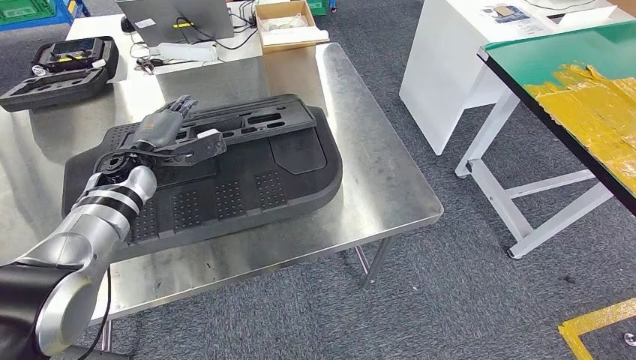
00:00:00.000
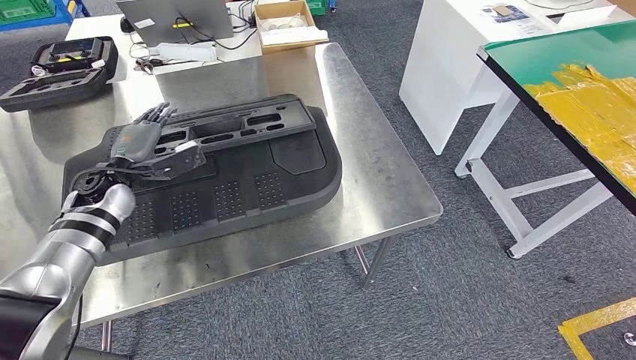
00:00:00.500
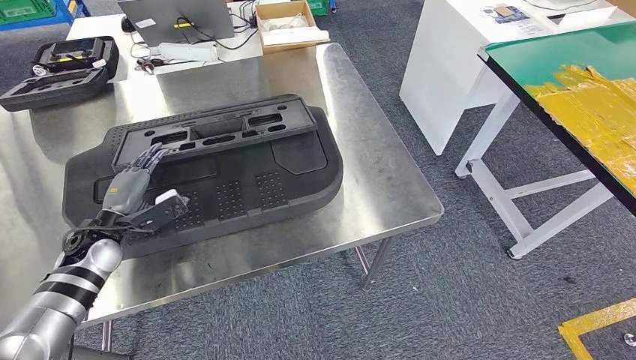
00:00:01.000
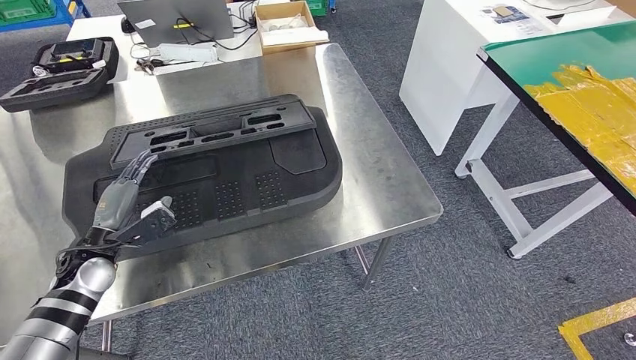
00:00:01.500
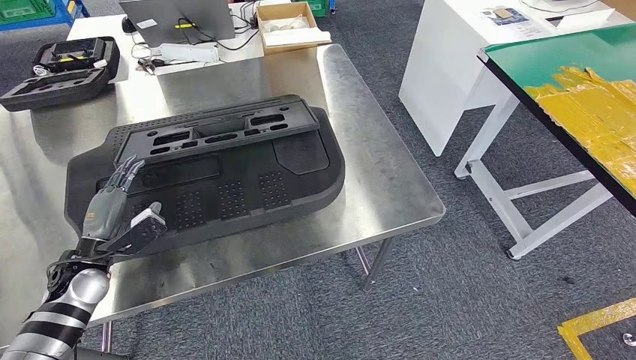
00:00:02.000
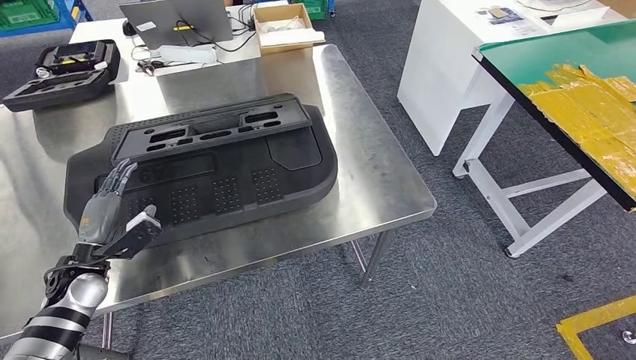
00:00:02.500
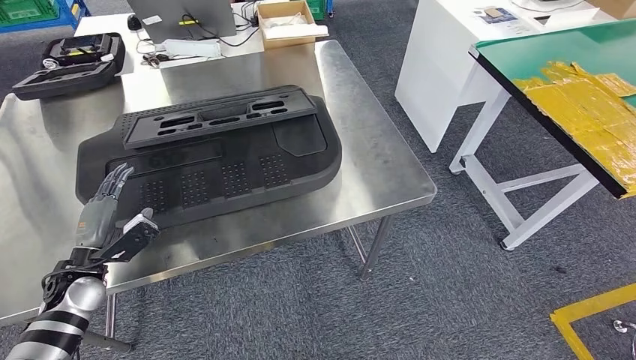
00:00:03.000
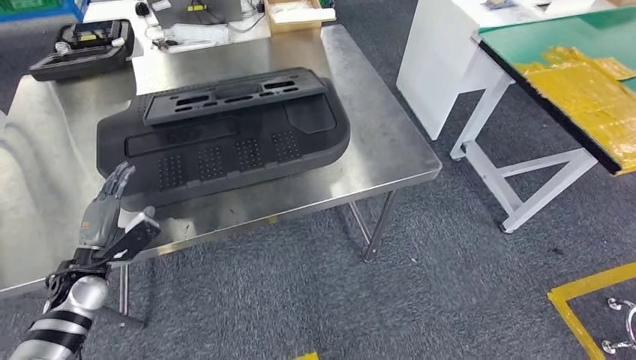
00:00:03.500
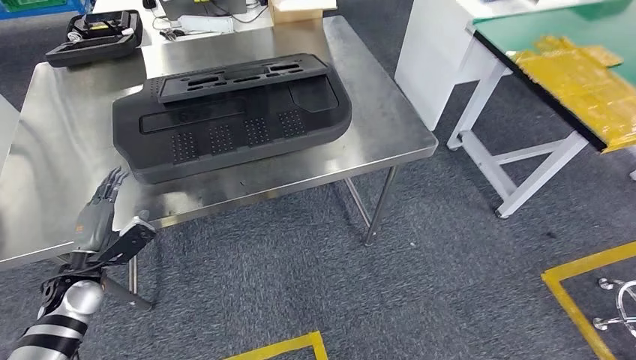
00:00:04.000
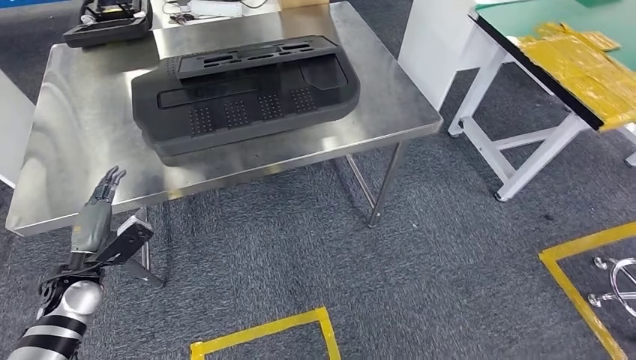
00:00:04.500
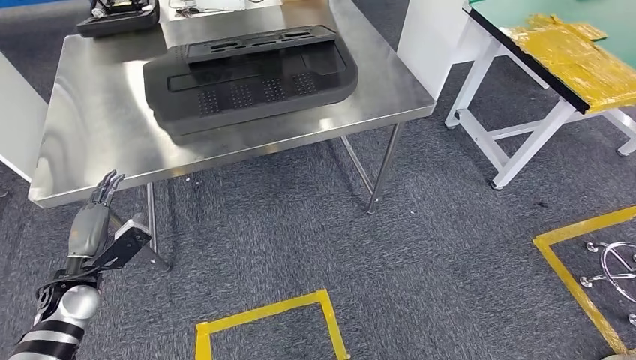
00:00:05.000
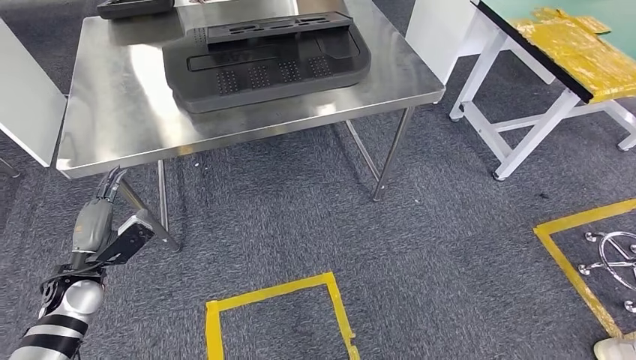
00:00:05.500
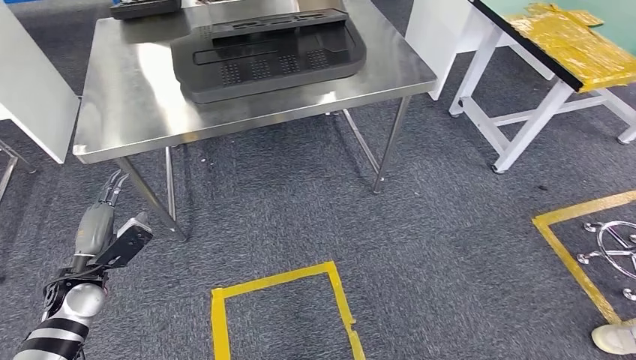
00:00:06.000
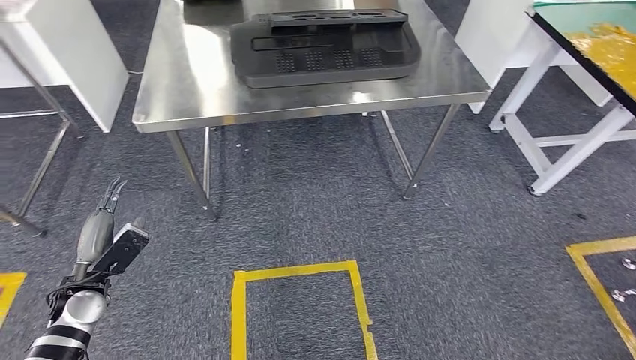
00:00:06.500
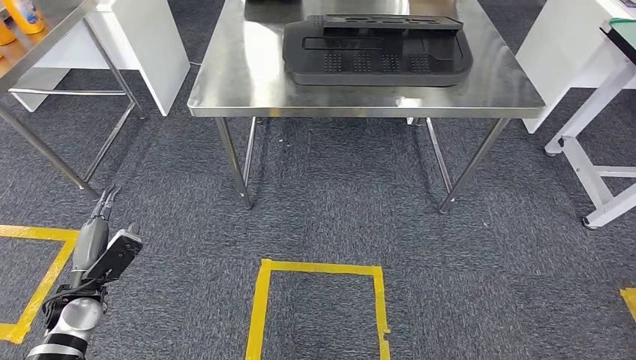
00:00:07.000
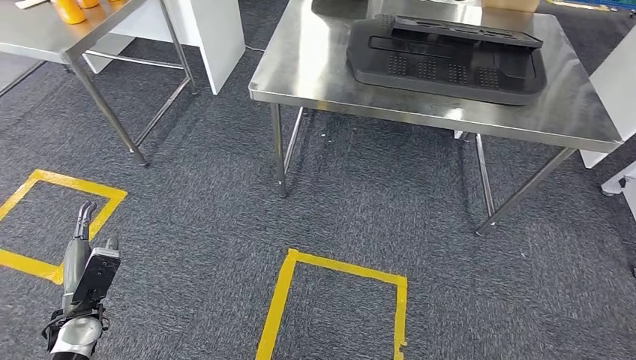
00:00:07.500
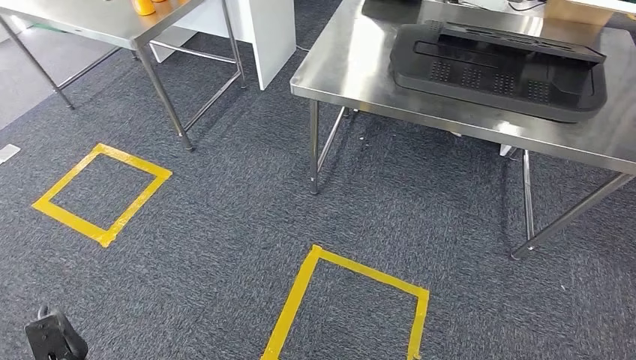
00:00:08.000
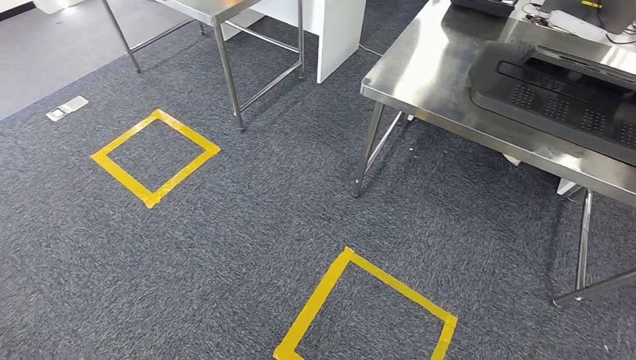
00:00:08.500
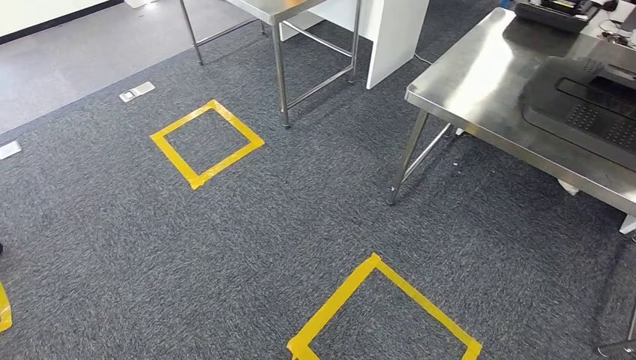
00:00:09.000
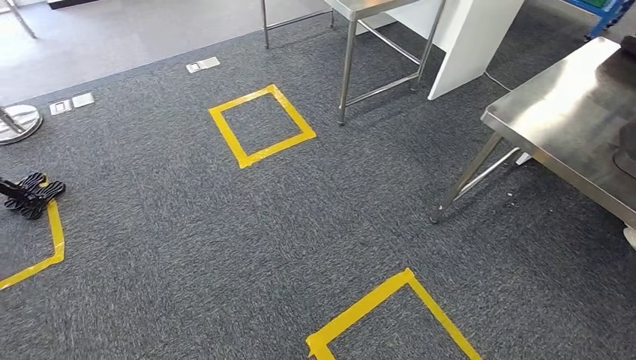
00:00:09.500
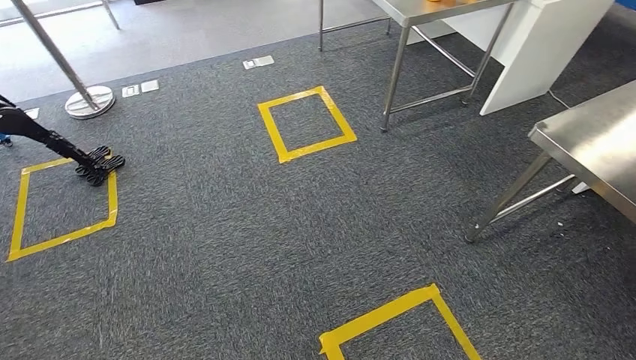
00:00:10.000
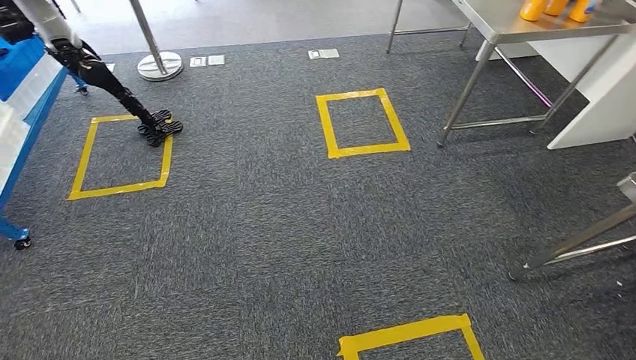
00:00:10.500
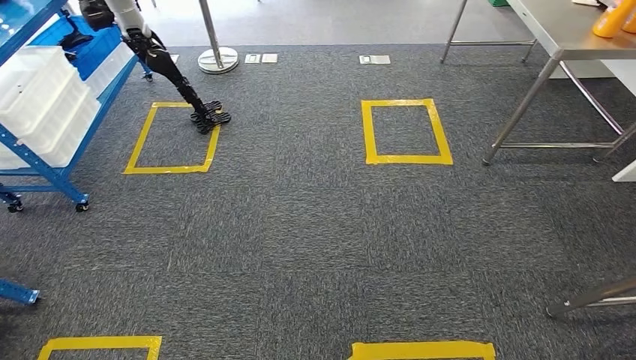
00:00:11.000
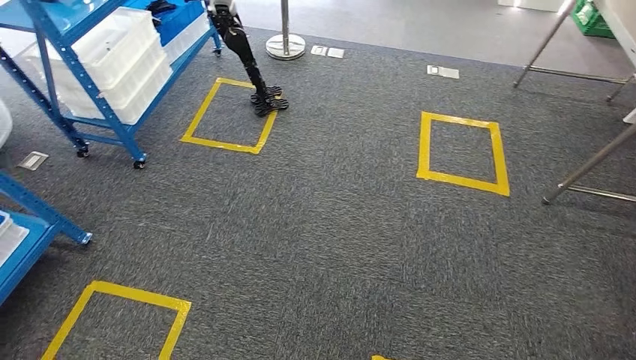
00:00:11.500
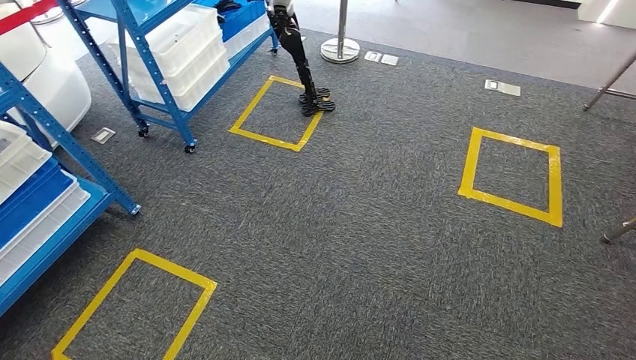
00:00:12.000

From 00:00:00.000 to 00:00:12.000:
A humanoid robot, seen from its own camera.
Step, from 00:00:00.000 to 00:00:02.000: Insert the large material into the corresponding slot on the workbench.
From 00:00:00.000 to 00:00:02.000: The left hand travels backward, downward and to the left by about 20 cm.

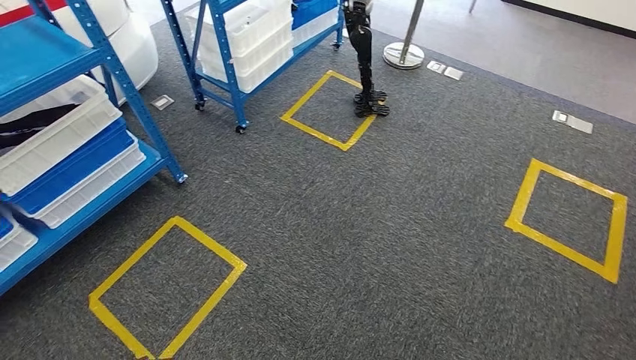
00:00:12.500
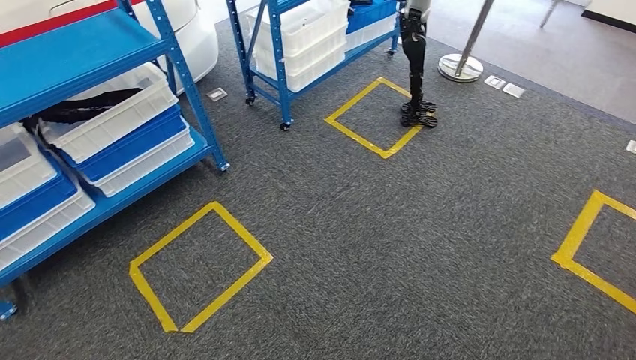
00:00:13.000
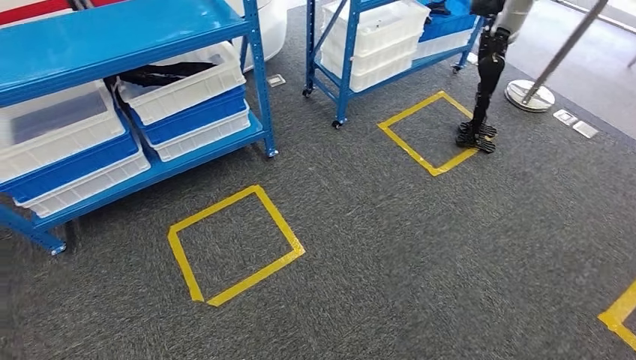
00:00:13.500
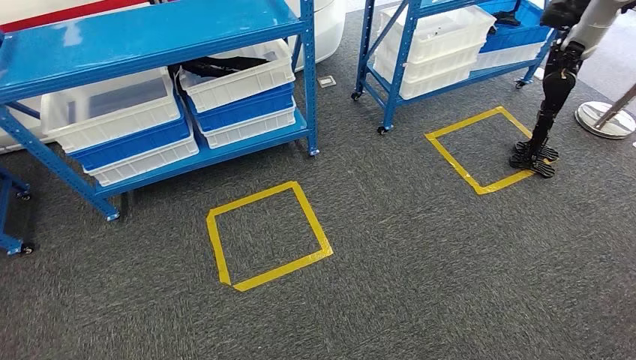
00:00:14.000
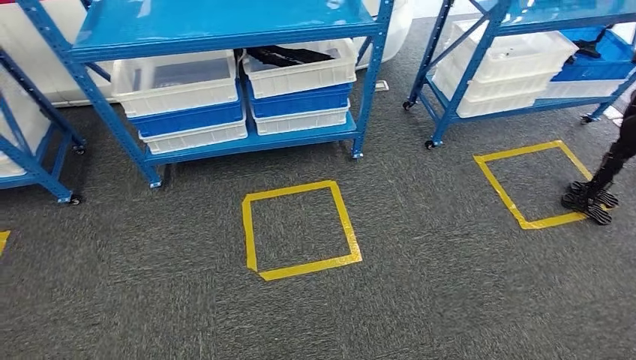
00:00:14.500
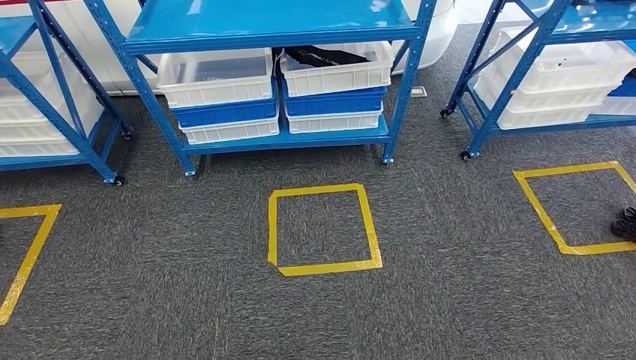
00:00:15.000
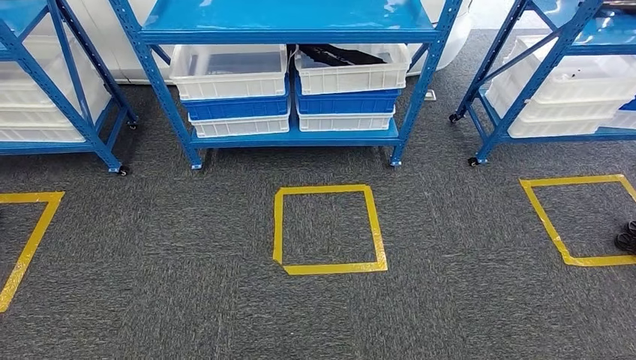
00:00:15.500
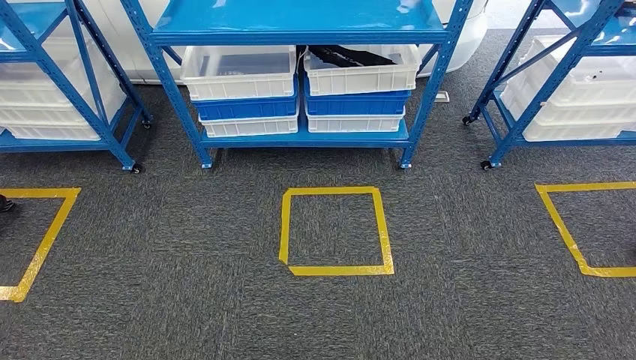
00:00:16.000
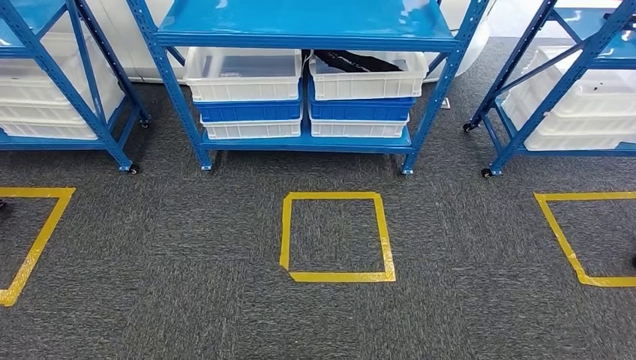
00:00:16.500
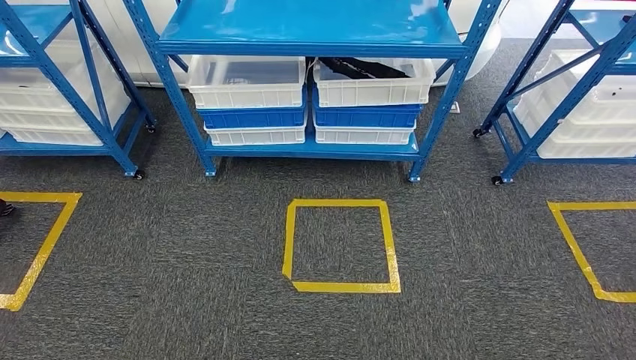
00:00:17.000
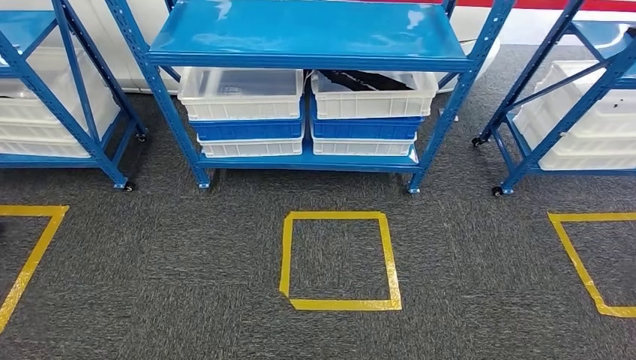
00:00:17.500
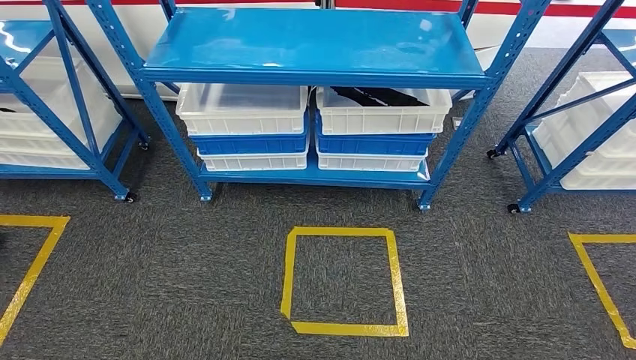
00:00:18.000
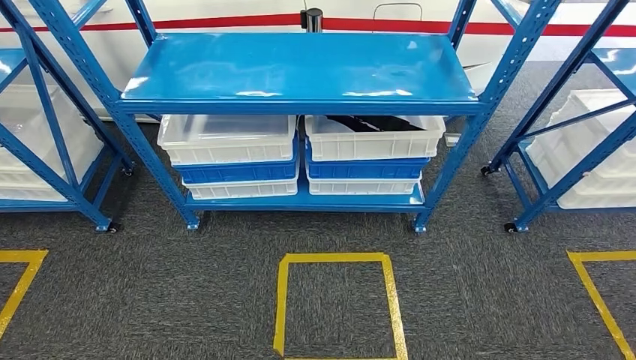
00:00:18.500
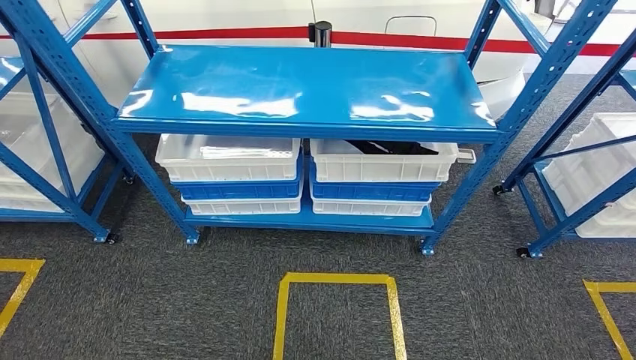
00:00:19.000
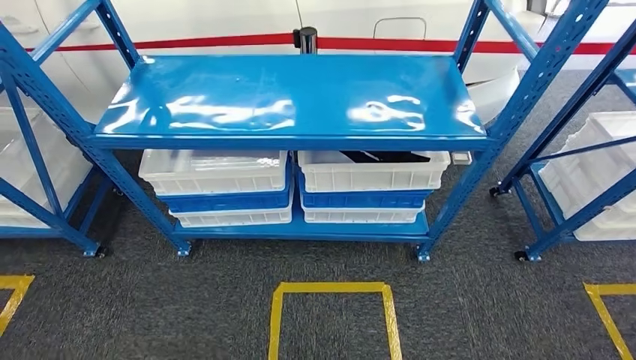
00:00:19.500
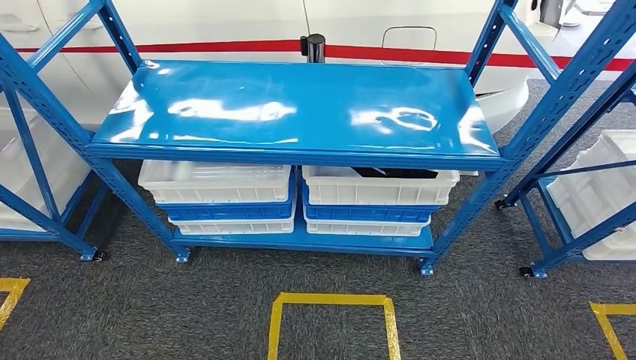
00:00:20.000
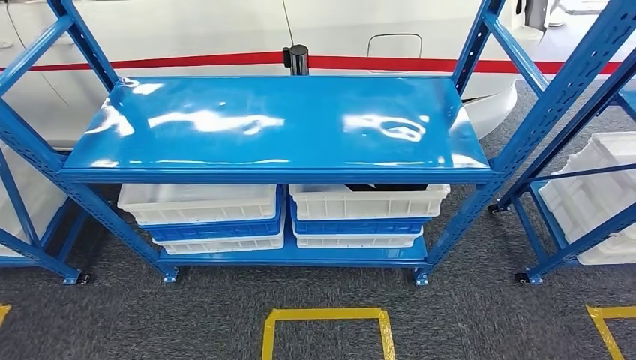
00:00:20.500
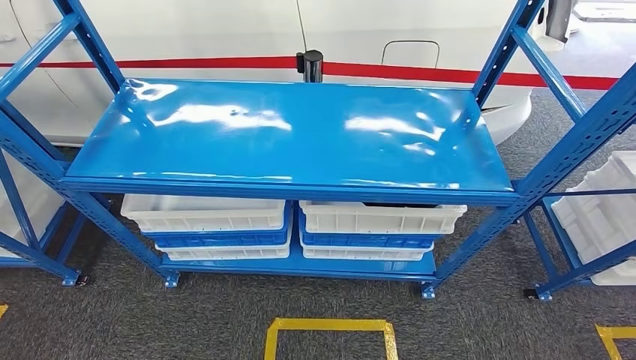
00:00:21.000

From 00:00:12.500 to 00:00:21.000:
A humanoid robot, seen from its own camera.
Step, from 00:00:12.500 to 00:00:21.000: Return to the initial position at the shelf.
